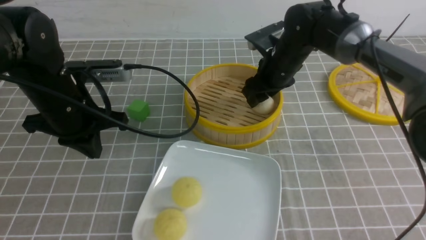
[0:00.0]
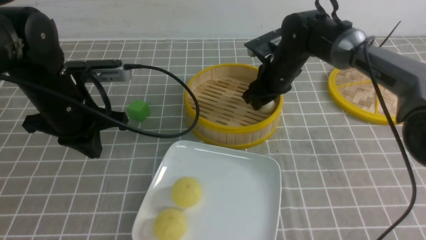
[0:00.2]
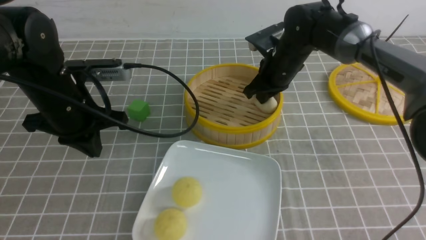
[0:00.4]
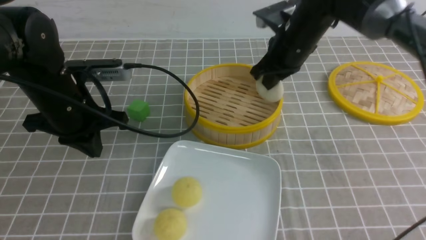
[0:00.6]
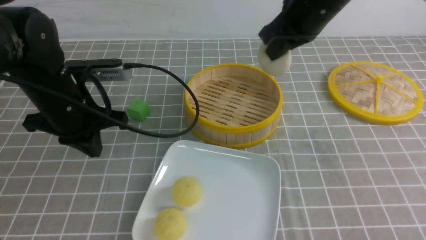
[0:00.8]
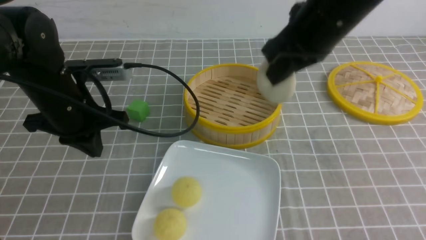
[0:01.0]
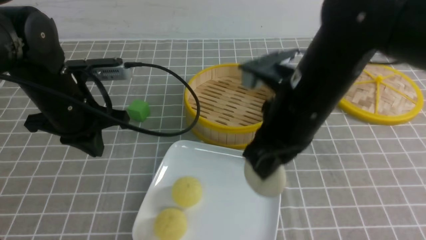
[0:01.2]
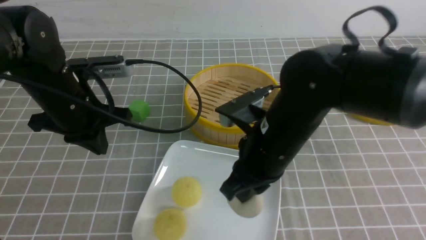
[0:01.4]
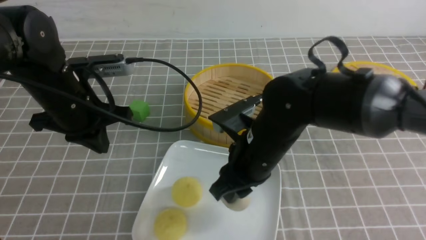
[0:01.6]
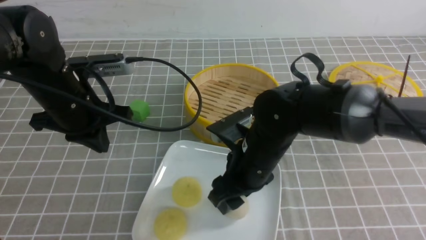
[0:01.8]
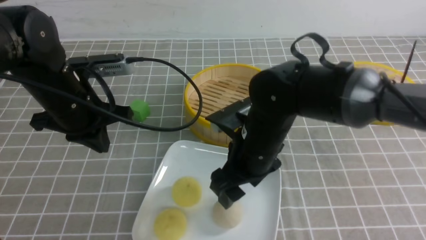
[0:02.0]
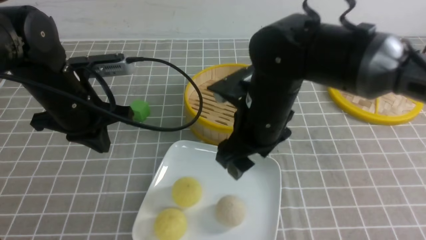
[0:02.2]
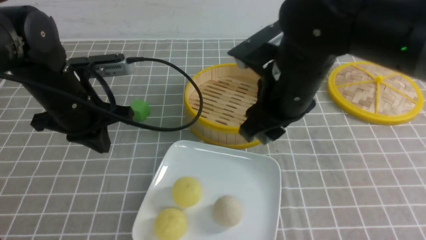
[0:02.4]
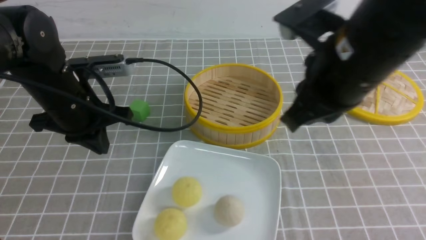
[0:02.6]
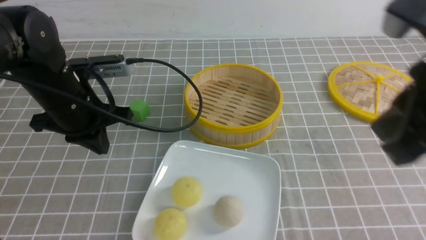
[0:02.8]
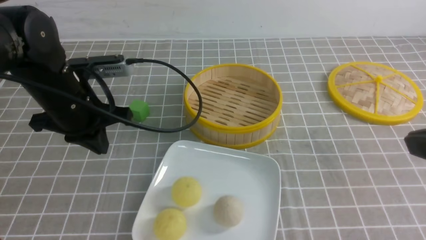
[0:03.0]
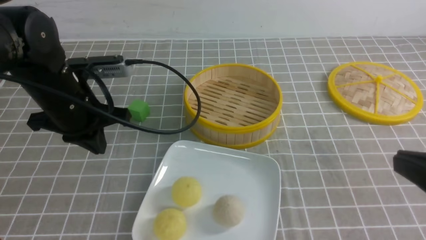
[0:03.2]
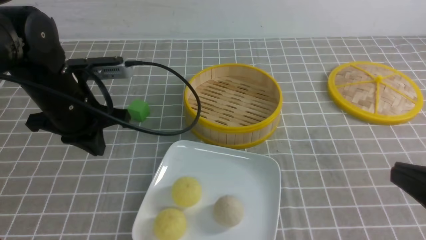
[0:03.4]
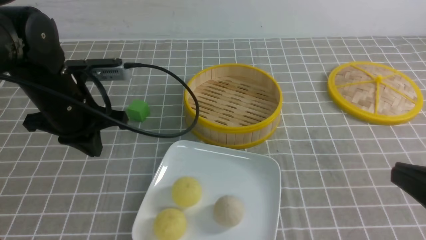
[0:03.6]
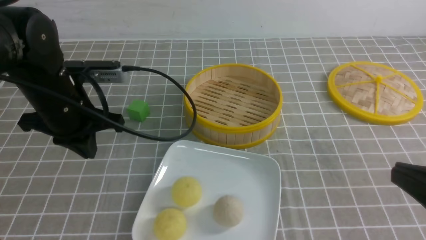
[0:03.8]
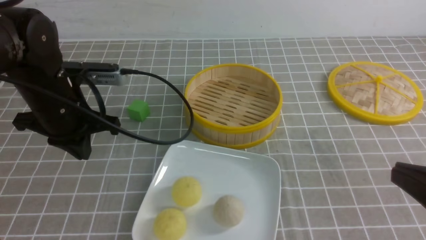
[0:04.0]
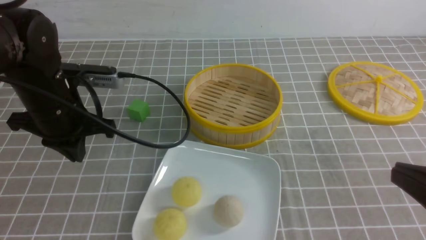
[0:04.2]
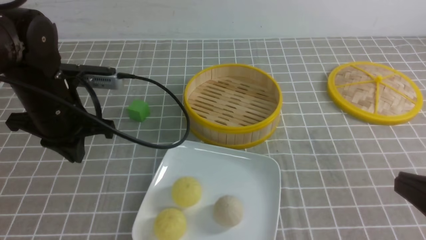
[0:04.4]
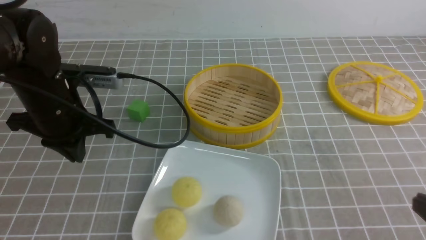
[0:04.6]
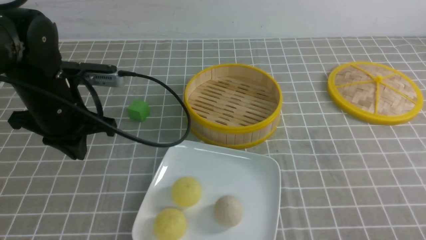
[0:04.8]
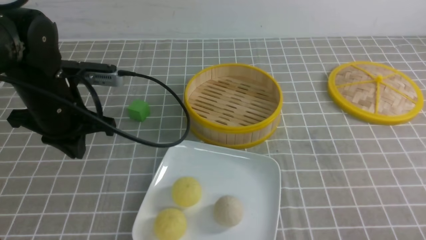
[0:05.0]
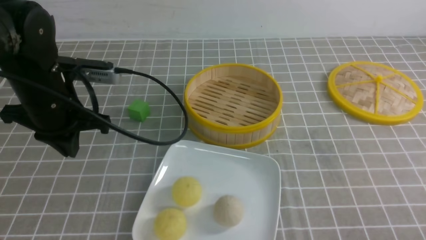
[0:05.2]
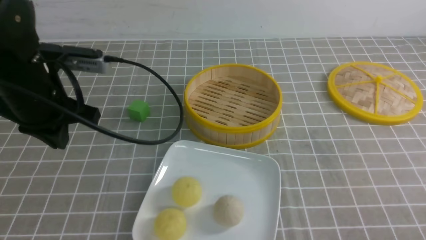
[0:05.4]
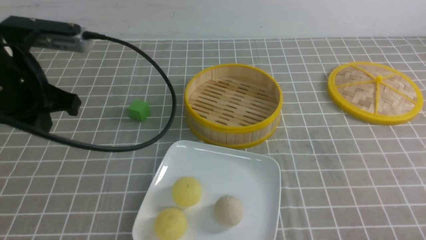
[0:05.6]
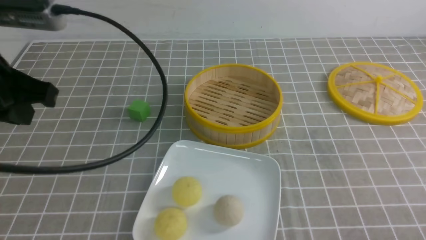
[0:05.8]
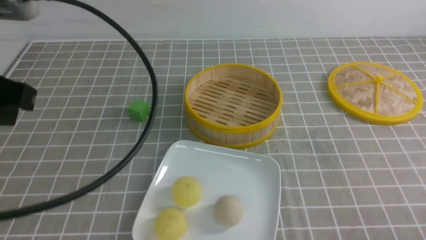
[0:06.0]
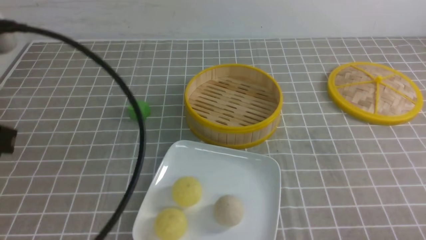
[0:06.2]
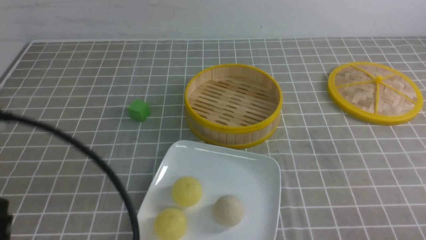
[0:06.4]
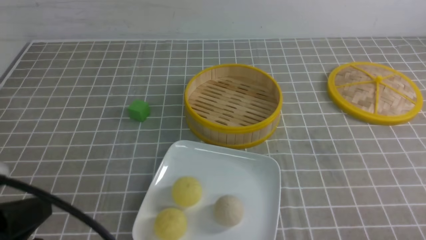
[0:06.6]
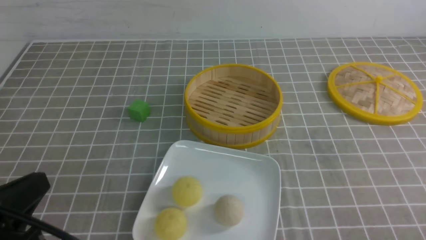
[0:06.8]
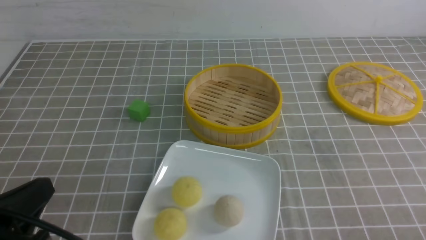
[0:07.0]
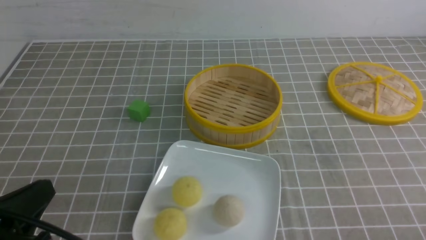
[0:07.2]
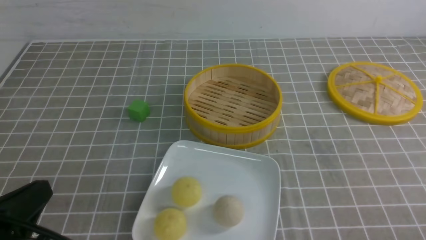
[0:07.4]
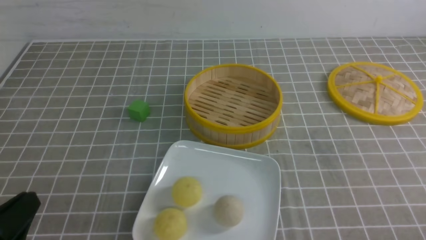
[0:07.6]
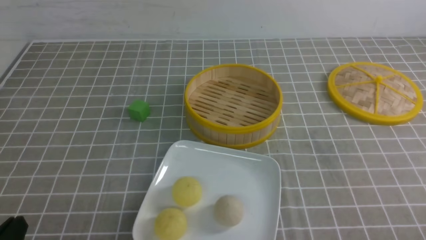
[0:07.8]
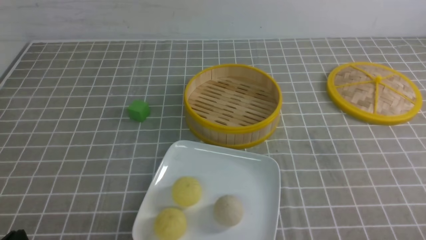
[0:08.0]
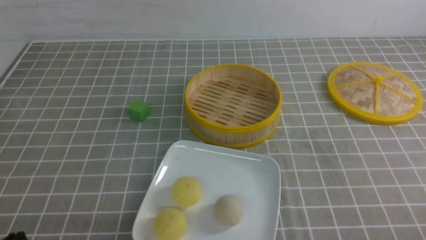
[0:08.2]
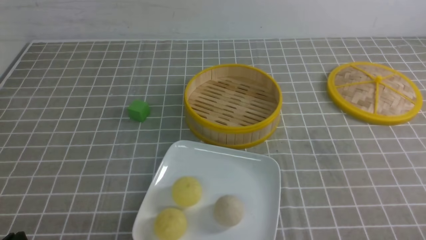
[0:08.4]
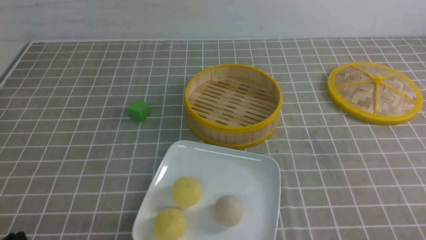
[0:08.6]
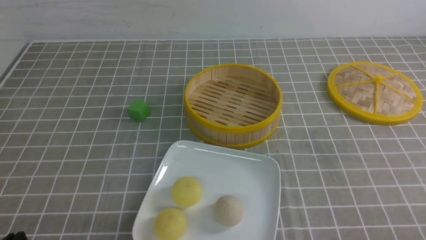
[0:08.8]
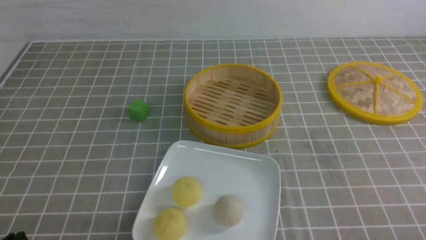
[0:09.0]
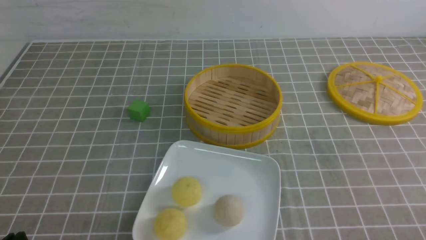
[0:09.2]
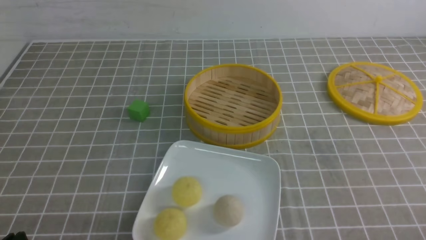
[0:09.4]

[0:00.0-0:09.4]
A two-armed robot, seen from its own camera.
Step, 0:00.6 to 0:01.8: use the right arm to put the steamed stuffed bun into the plate.
0:00.0 to 0:01.6: The right gripper is displaced backward by some 20 cm, and closes and opens again.
0:01.6 to 0:03.2: The right gripper shifts roughly 30 cm to the right, backward and upward, and closes its fingers.
0:03.2 to 0:04.8: The right gripper goes roughly 15 cm downward and to the right.
0:04.8 to 0:06.2: The left gripper is displaced backward and upward by approximately 20 cm.
0:06.2 to 0:07.8: The left gripper moves downward and backward, approximately 20 cm.
